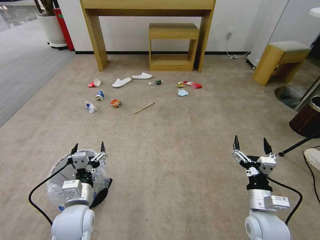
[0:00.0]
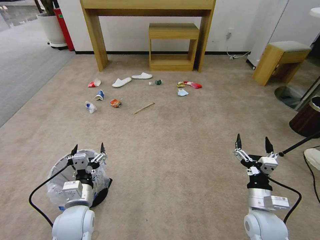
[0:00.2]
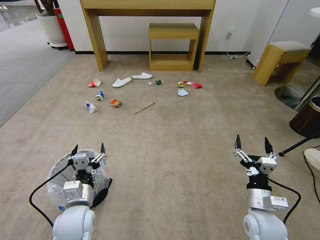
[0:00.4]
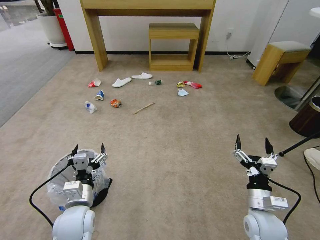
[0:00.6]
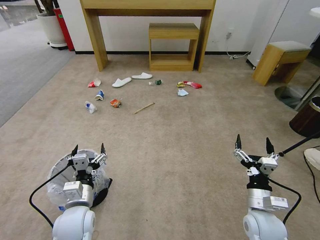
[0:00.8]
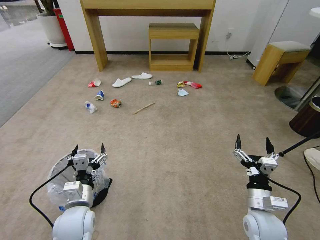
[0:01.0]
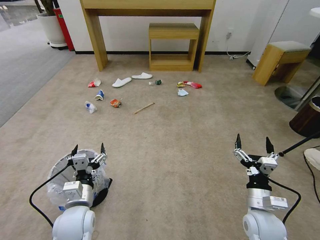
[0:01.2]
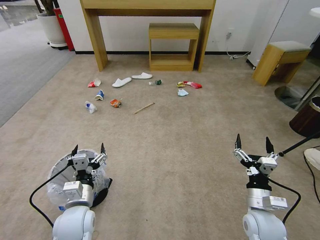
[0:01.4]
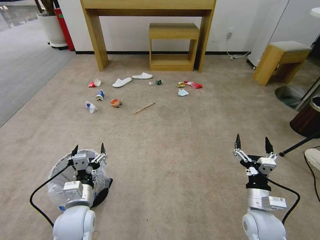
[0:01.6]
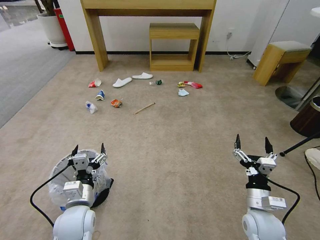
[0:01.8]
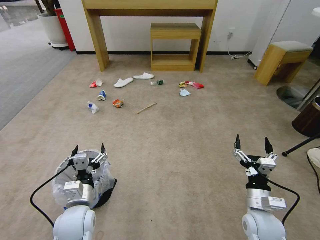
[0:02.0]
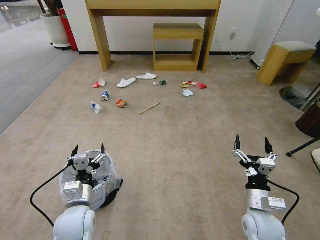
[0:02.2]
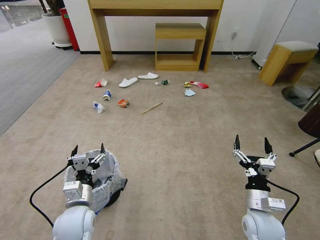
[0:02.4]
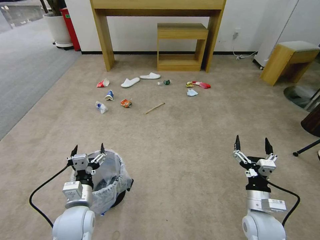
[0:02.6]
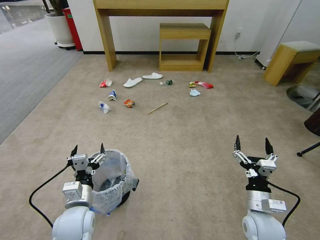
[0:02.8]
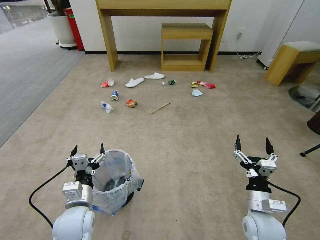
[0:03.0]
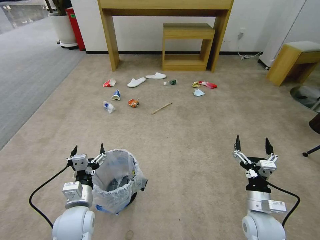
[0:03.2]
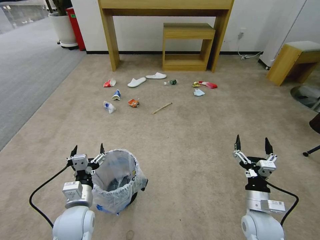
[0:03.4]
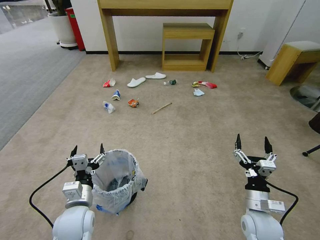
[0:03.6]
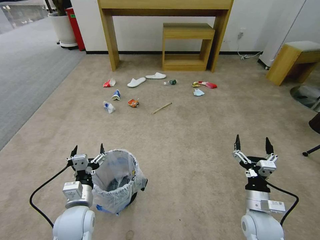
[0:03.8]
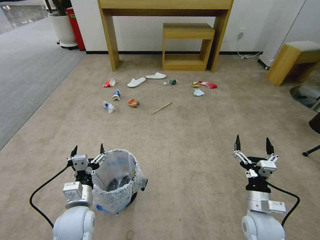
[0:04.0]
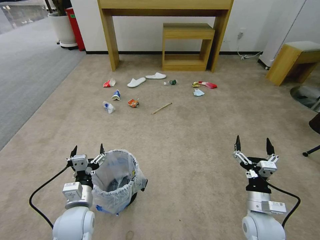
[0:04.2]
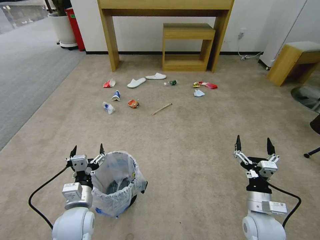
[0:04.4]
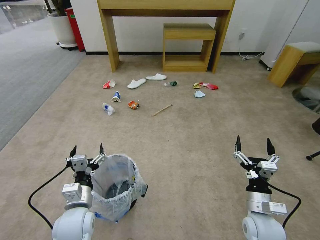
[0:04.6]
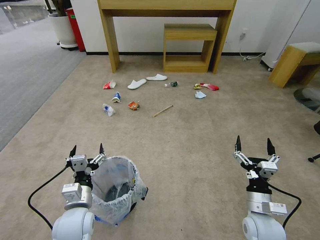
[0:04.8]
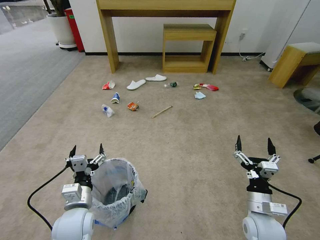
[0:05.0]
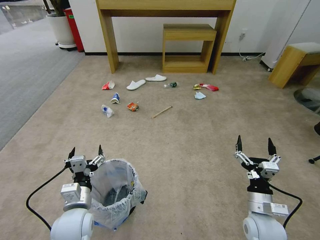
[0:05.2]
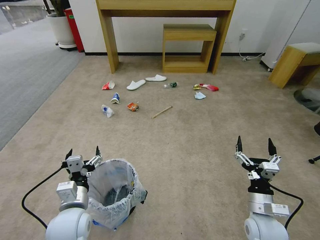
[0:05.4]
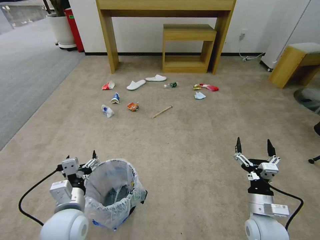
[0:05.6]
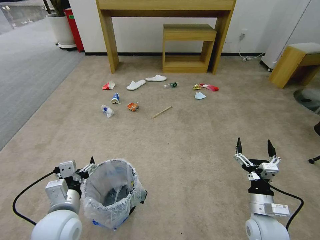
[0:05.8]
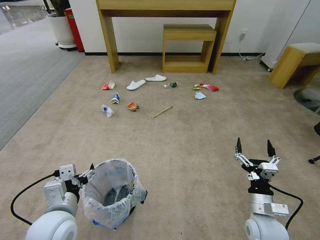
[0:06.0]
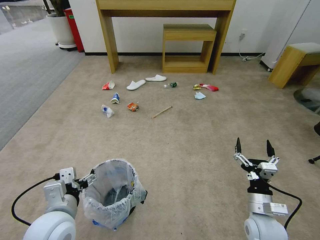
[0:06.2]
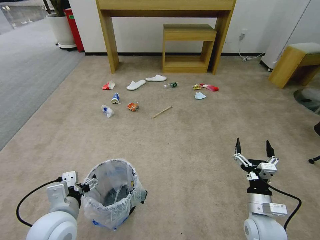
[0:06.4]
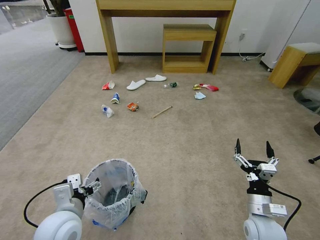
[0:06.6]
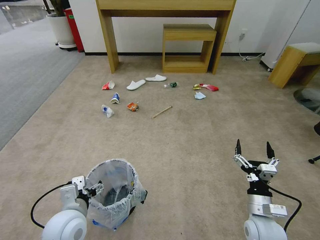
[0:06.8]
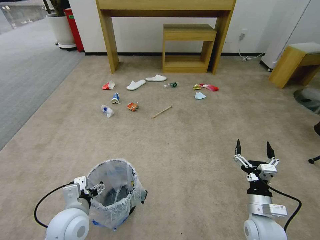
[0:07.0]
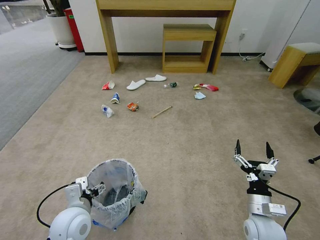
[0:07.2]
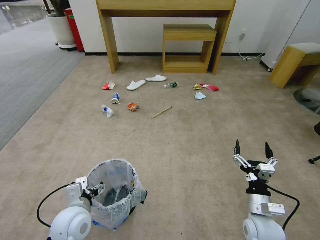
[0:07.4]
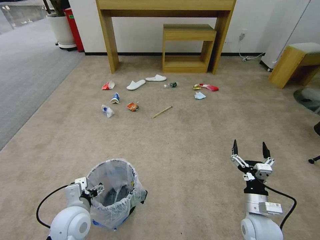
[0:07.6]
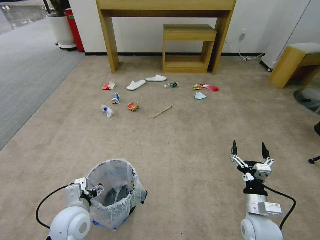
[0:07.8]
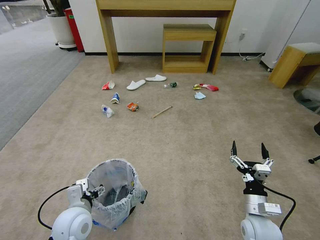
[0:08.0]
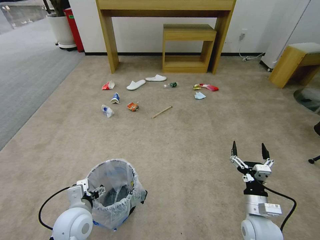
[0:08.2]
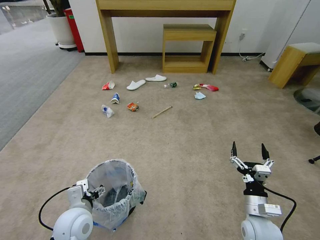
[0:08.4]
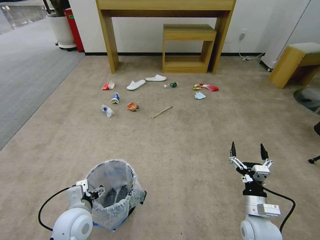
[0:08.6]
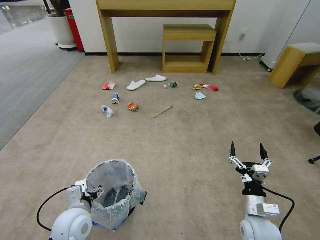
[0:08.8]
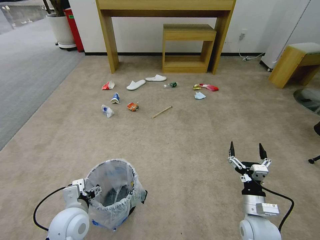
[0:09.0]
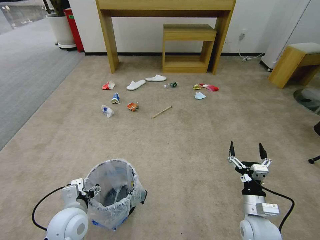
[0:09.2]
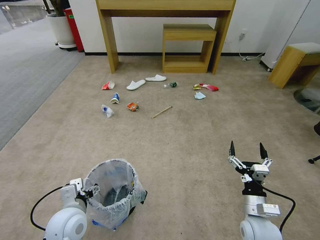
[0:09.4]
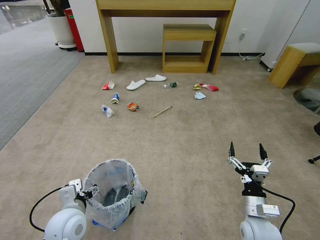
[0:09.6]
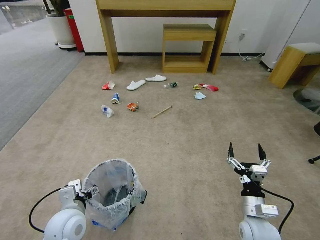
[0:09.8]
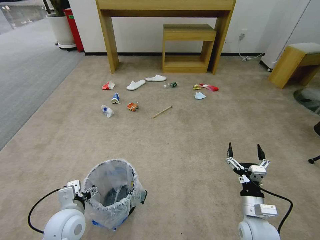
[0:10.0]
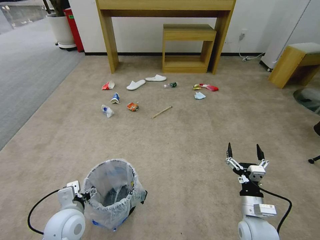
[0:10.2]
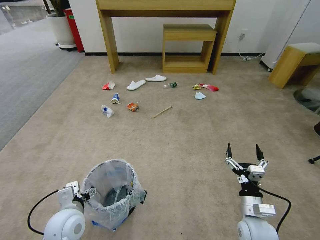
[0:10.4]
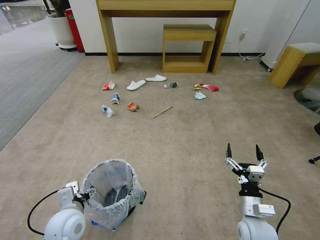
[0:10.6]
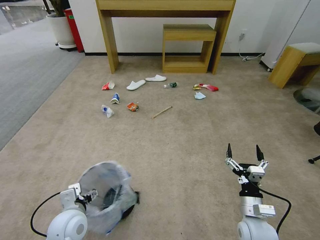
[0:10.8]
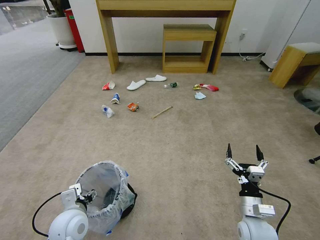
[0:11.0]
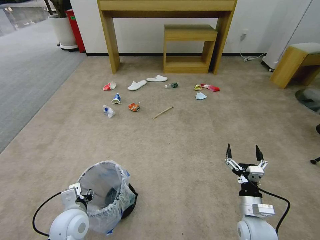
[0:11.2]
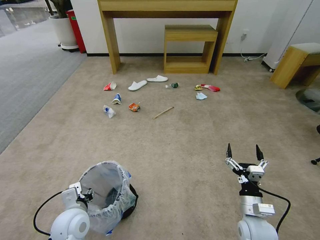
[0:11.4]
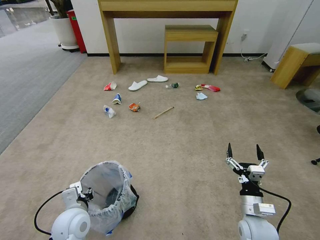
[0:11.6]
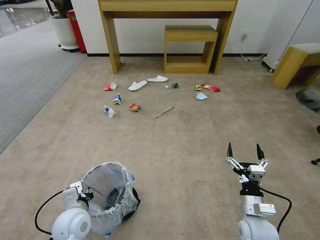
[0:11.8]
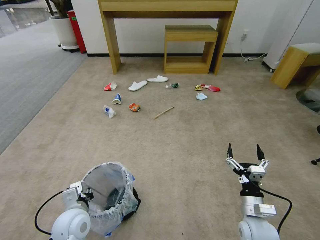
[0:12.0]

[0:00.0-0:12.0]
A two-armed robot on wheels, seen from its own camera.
Task of the whole recording: Pick up the trash bin and place the garbage on the floor into it.
0:01.6 to 0:04.4: The two grippers keep their place.
0:04.4 to 0:06.0: The left gripper is displaced upward by some 5 cm.
0:06.0 to 0:07.6: The left gripper moves downward, approximately 5 cm.
0:07.6 to 0:09.0: The two grippers keep their place.
0:09.0 to 0:10.4: Both grippers stay put.
0:10.4 to 0:12.0: The left gripper closes its fingers.

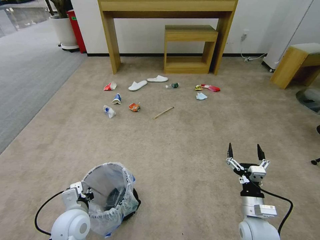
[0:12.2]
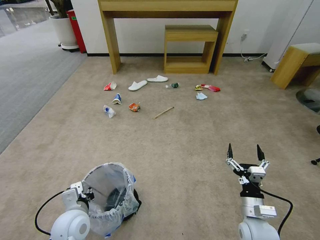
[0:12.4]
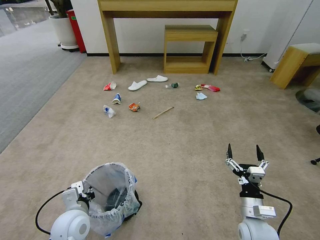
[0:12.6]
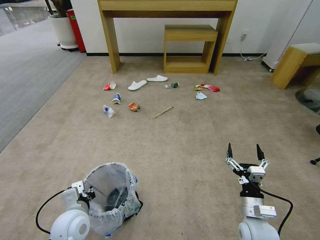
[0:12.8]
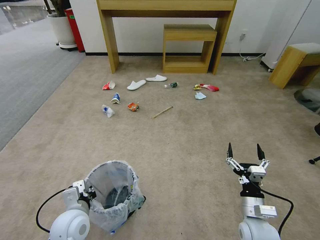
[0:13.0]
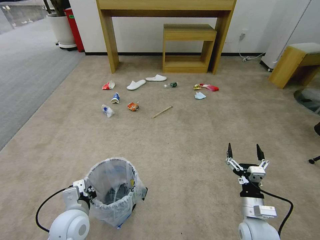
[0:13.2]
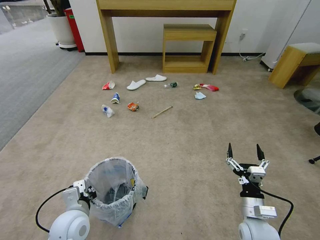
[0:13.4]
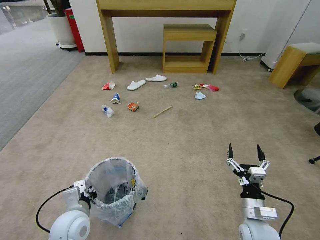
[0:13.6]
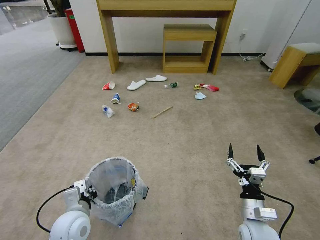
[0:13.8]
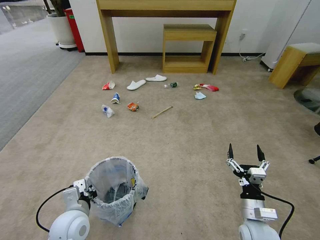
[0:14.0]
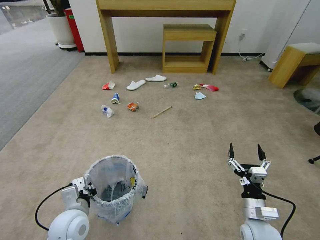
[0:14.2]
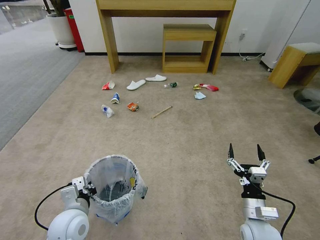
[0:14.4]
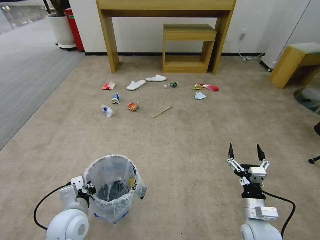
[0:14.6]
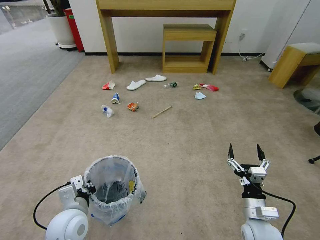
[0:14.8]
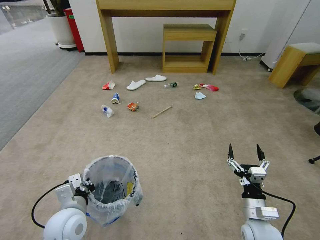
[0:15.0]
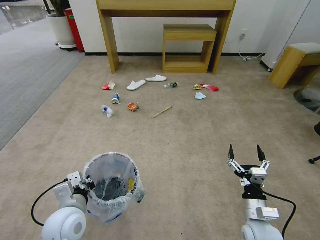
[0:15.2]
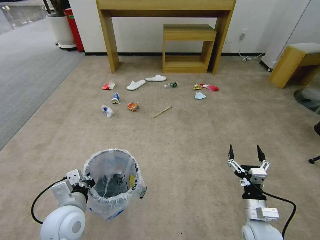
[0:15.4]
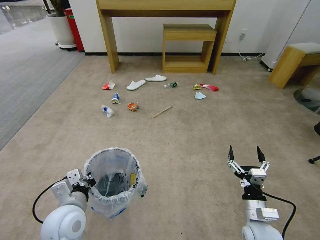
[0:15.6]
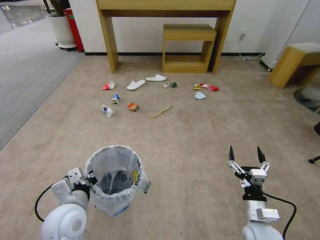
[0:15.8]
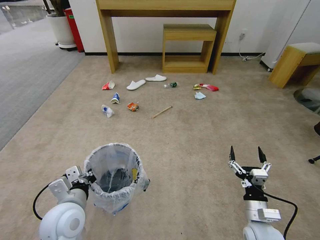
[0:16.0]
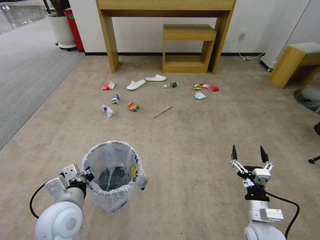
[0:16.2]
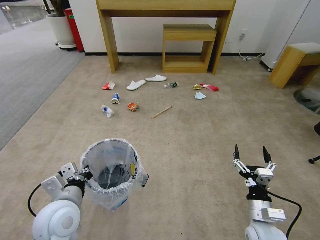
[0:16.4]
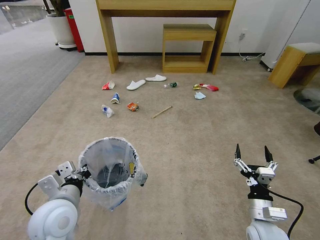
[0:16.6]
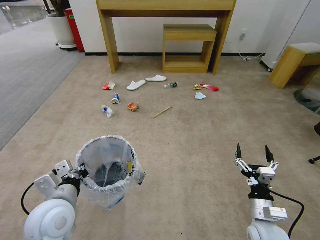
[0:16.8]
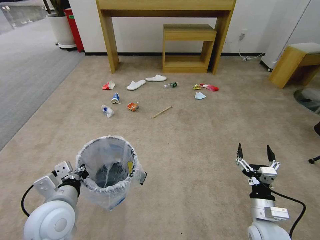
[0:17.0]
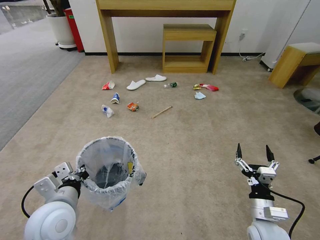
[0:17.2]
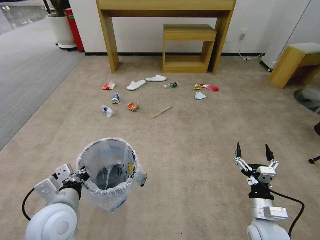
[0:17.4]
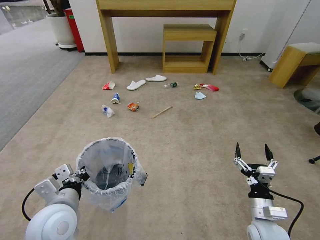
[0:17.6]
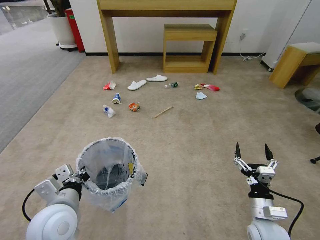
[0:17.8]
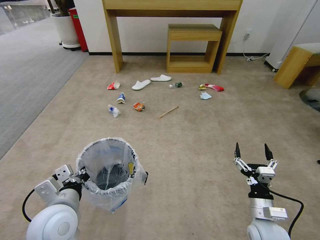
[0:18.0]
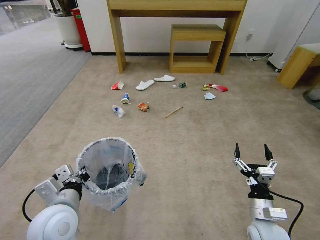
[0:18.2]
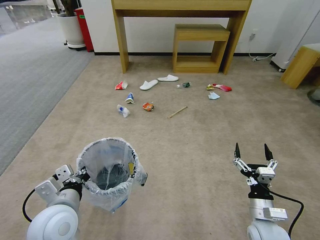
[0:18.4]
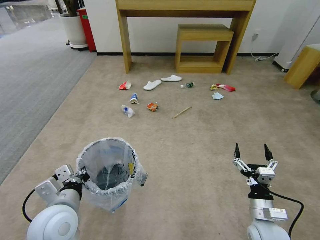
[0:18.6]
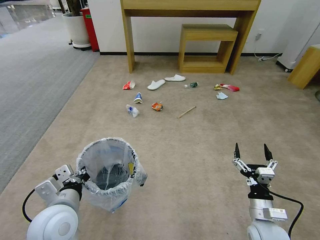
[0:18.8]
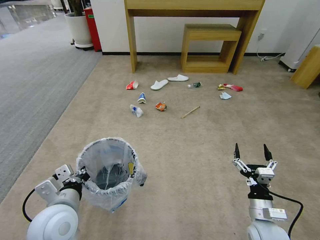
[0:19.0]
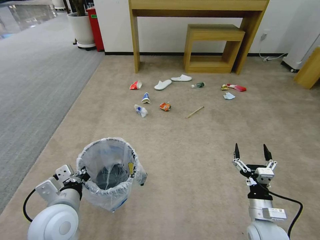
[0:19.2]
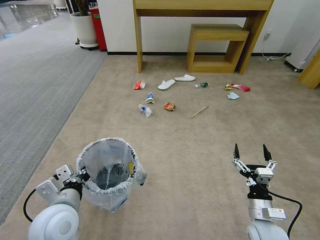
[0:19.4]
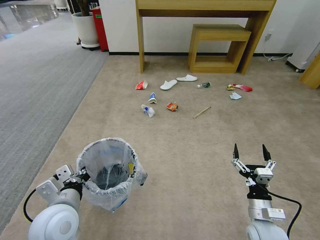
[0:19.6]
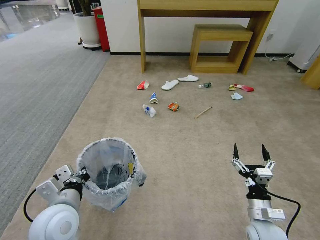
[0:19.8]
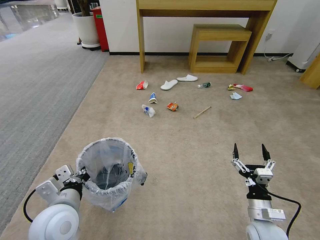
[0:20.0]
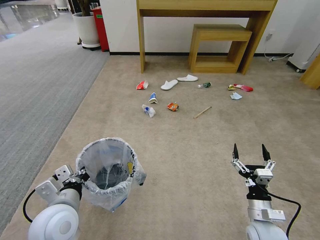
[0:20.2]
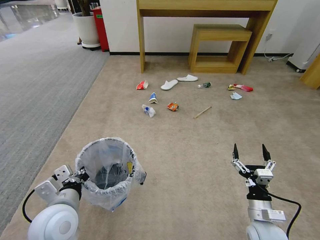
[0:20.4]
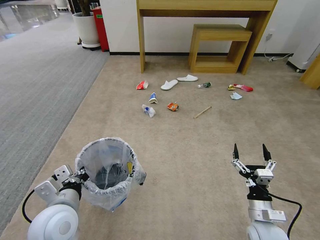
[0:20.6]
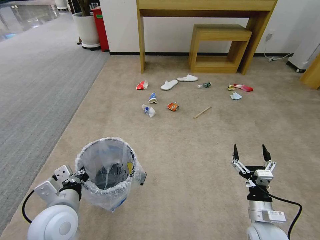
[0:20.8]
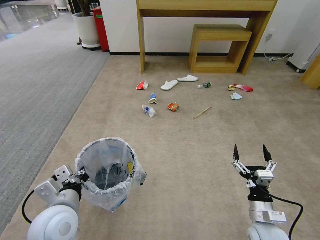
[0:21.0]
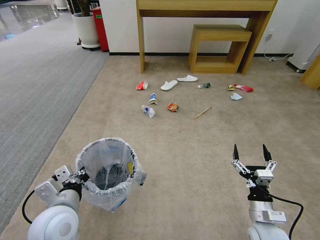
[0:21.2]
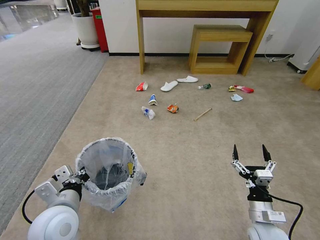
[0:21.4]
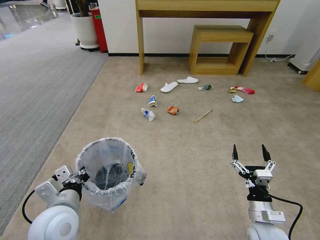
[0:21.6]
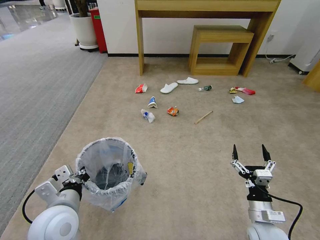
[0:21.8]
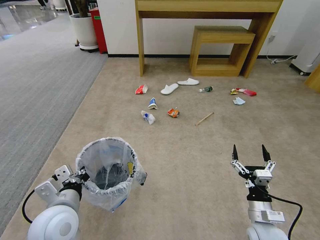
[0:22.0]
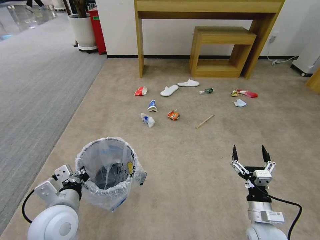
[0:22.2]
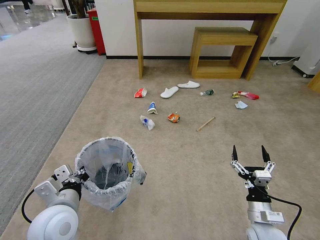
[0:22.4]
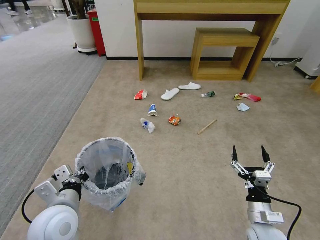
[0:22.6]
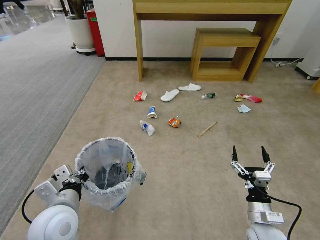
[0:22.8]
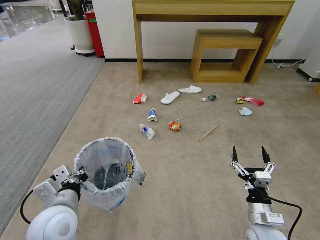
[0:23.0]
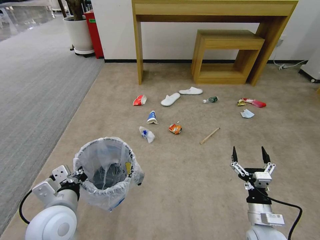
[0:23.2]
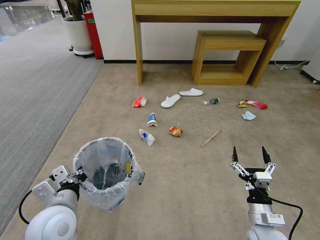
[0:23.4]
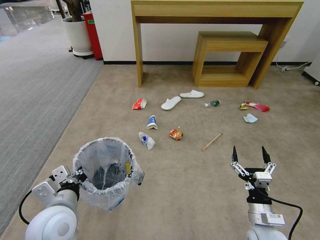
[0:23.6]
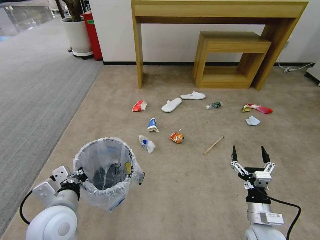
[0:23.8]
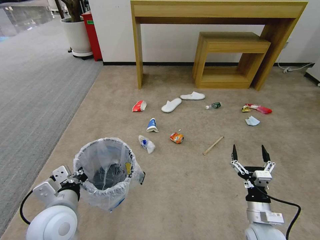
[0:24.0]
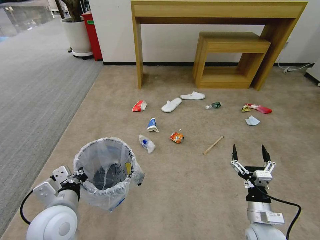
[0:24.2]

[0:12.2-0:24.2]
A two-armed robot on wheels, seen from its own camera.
Task of the whole recording: Pick up the trash bin and place the garbage on the floor into it.
0:12.2 to 0:15.2: The grippers move only a little.
0:15.2 to 0:18.2: The grippers make only small movements.
0:18.2 to 0:24.2: Neither gripper changes place.
